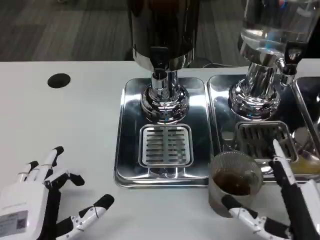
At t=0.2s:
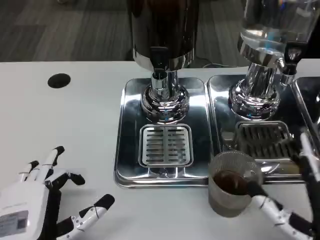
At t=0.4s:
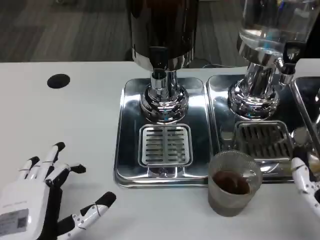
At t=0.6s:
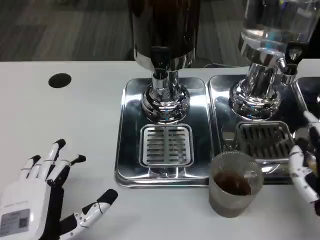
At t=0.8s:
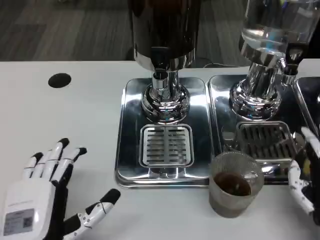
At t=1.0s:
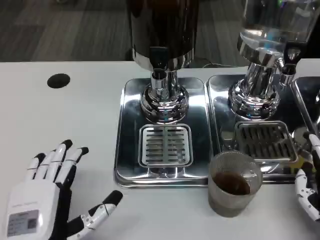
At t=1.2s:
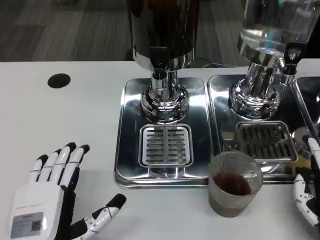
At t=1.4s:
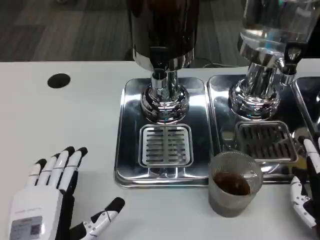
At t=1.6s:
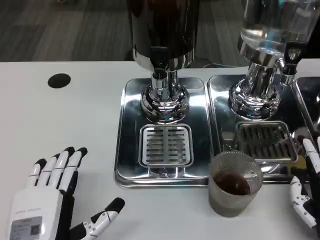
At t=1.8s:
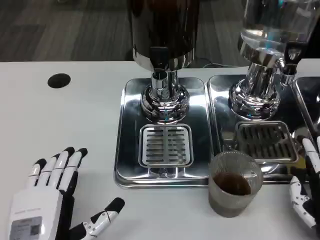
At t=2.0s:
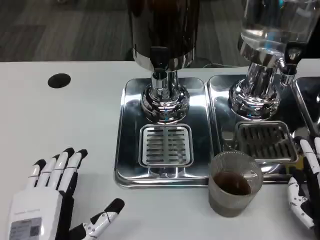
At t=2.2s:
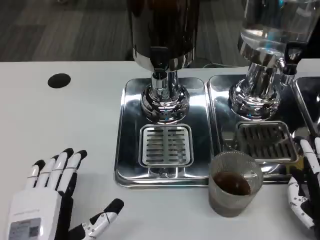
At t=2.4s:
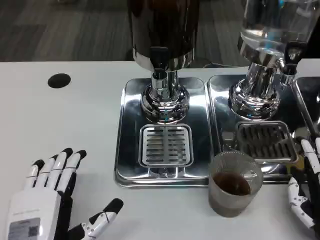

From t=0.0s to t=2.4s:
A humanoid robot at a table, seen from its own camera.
Task of the whole recording: Grasp the cup under the faucet to collect the drink, then remove the cup.
From t=0.0s to t=1.2s: The right hand shifts by some 5 cm.
From t=1.2s to t=2.4s: The two hands keep their place.

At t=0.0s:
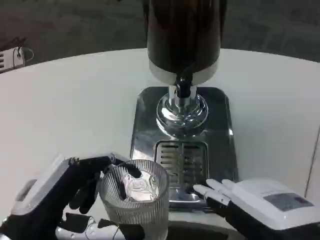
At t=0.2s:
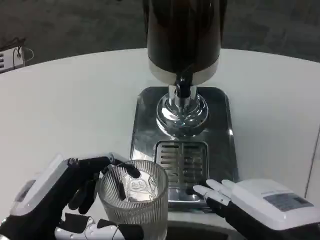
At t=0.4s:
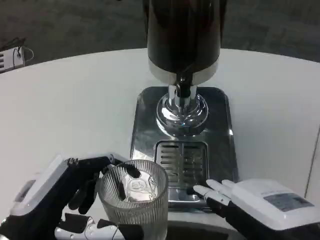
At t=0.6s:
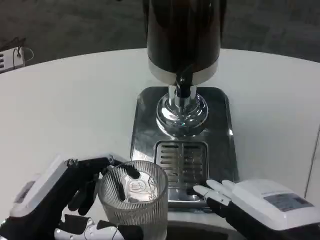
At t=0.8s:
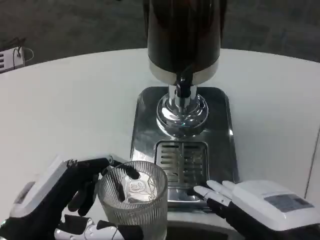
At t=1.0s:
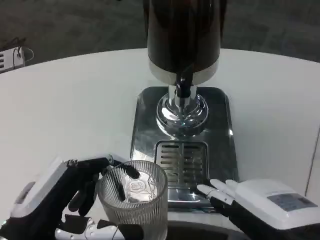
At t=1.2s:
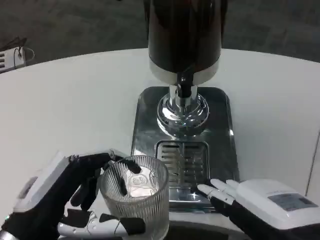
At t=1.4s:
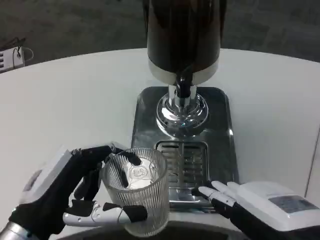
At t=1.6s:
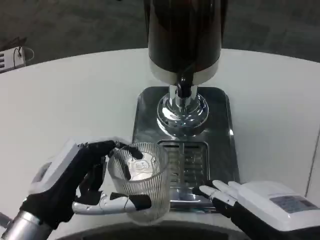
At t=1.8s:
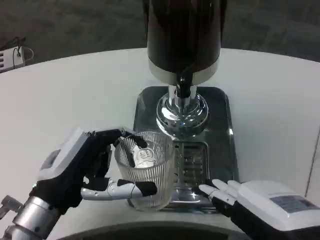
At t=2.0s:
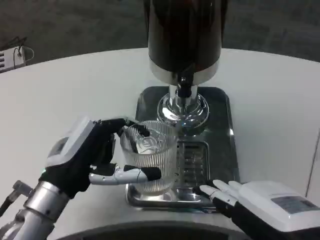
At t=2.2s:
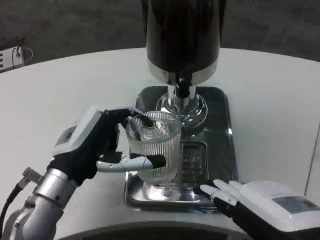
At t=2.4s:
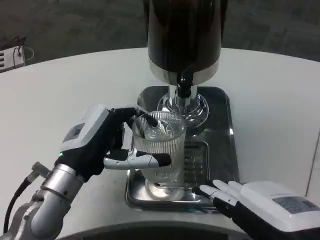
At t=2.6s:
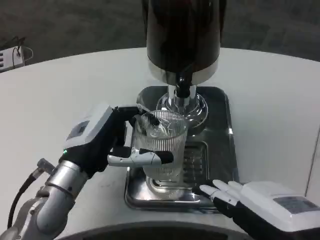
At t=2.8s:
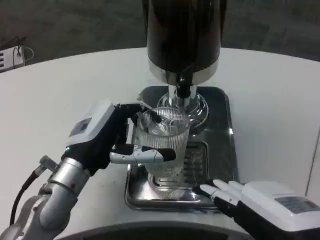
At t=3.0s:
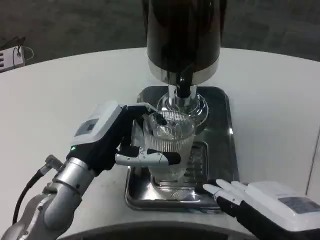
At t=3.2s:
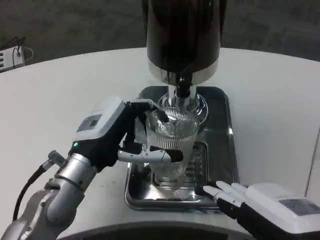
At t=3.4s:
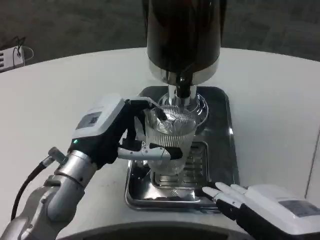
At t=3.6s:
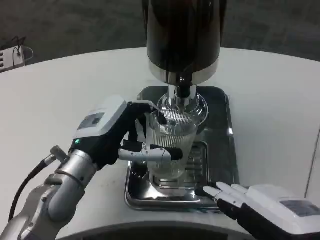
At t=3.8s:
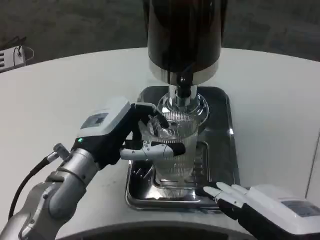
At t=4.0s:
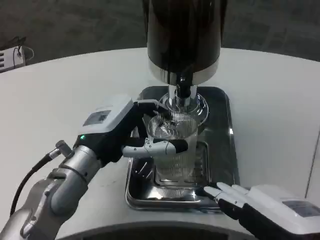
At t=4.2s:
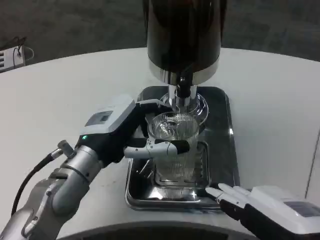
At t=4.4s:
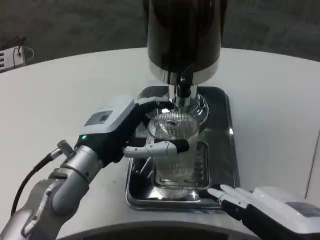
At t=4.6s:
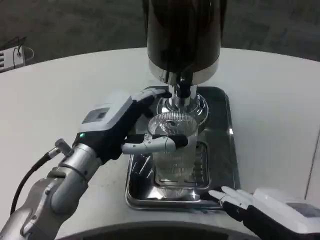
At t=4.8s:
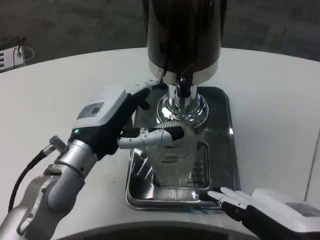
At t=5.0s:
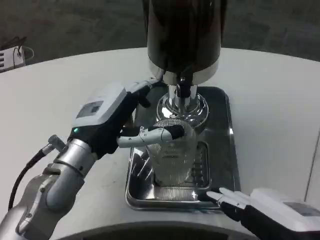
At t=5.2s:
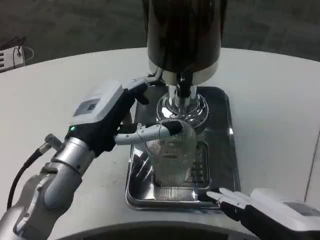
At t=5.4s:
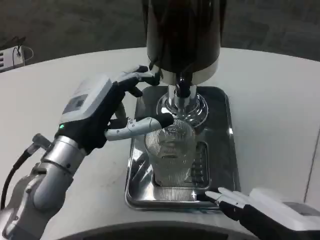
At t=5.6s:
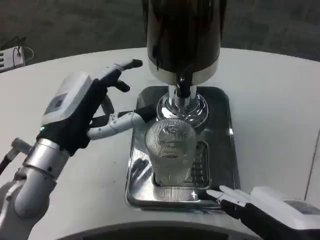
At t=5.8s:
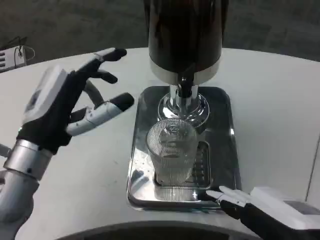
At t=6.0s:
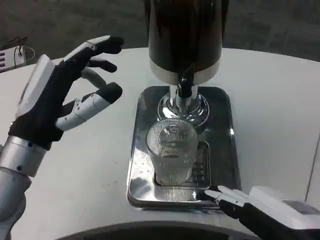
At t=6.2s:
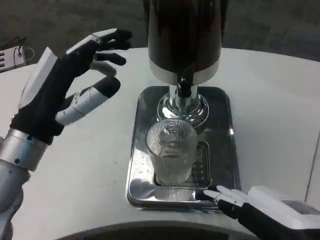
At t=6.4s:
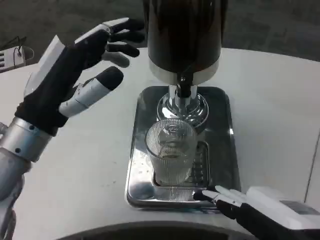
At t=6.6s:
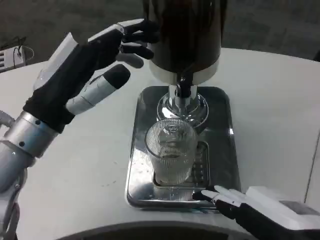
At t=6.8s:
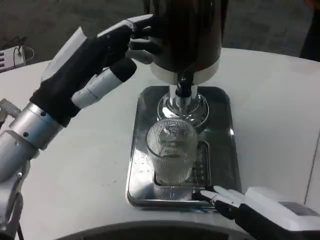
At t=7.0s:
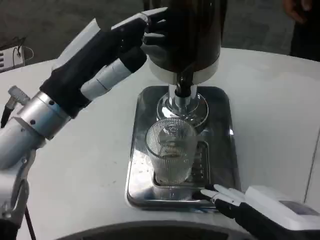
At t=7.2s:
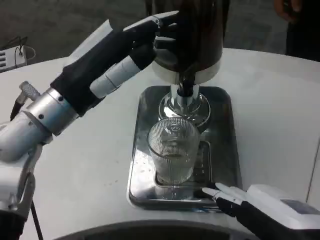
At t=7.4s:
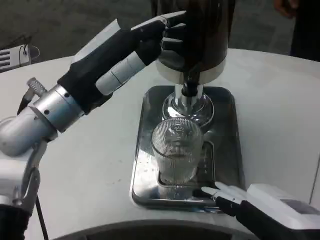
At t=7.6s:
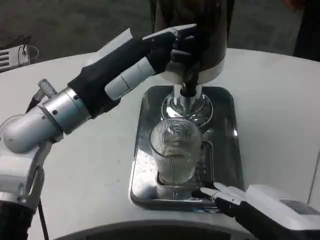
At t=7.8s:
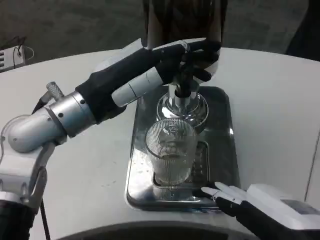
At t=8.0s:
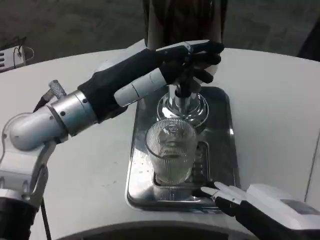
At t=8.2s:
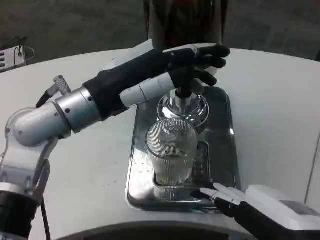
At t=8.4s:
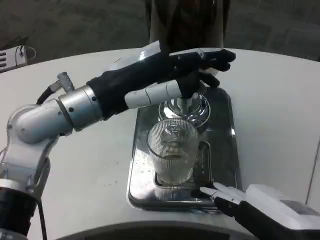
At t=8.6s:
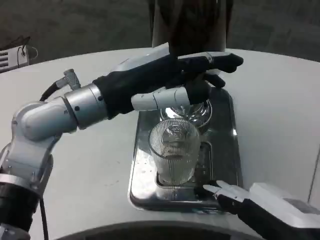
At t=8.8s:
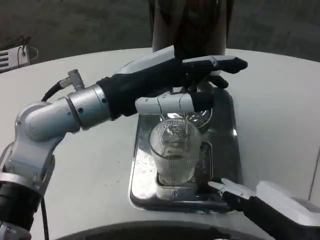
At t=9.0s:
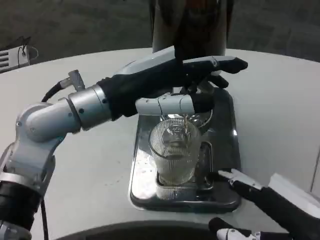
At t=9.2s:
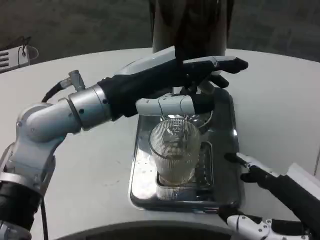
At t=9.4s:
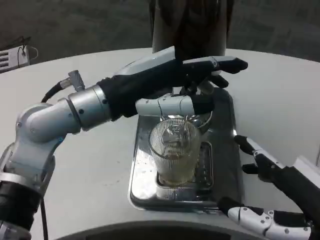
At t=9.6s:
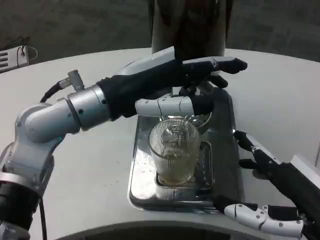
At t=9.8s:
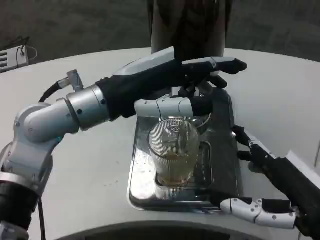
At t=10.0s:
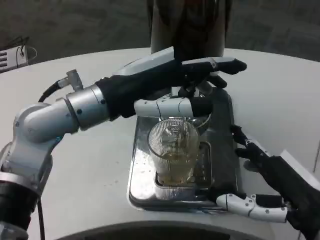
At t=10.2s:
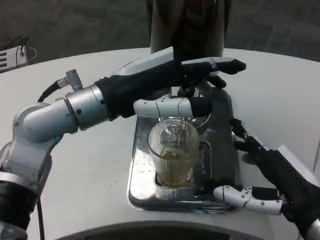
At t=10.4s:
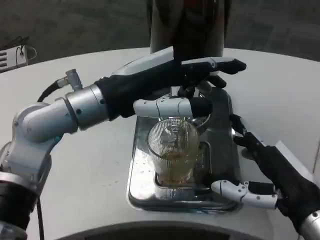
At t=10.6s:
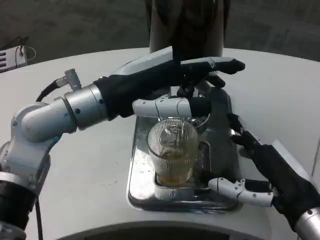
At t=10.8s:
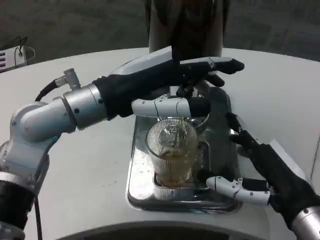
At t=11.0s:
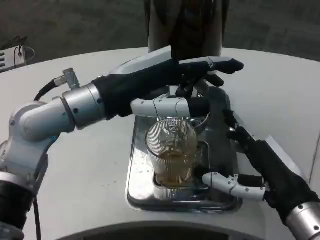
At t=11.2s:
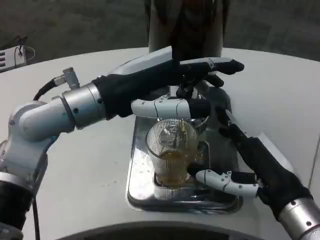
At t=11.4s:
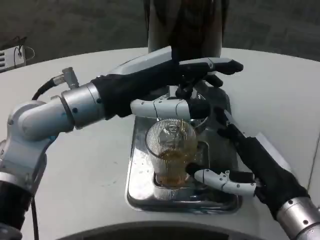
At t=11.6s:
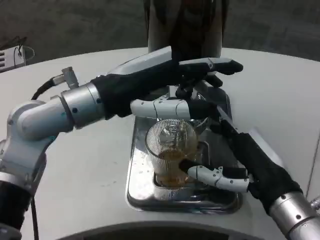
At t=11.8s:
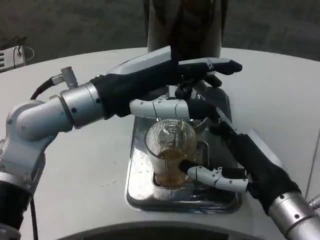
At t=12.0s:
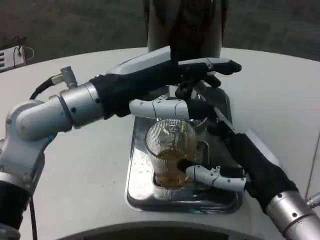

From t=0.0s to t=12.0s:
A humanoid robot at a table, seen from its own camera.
Task of the whole recording: Grasp the cup under the faucet to collect the drink, then remove the cup.
From t=0.0s to t=1.6s: The hands stay close to where they were, moving slightly.
From t=1.6s to t=3.0s: The left hand travels forward by roughly 10 cm.
From t=3.0s to t=4.4s: There are only small adjustments of the hands.
From t=4.4s to t=6.0s: The left hand heads to the left, covering some 5 cm.
From t=6.0s to t=7.6s: The left hand moves upward, roughly 5 cm.
From t=9.0s to t=10.4s: The right hand shifts approximately 10 cm forward.

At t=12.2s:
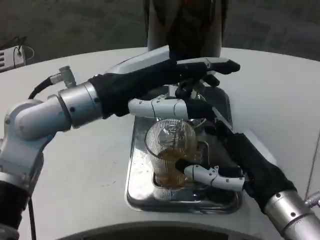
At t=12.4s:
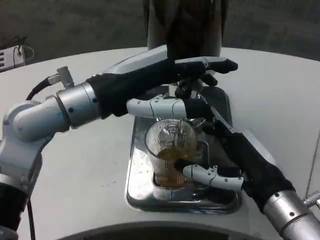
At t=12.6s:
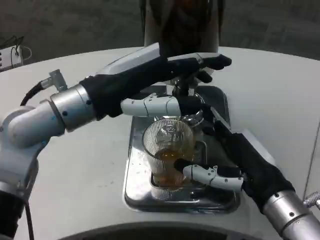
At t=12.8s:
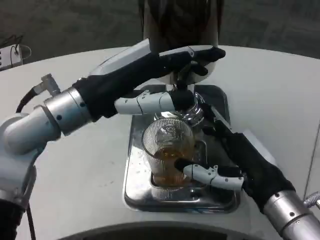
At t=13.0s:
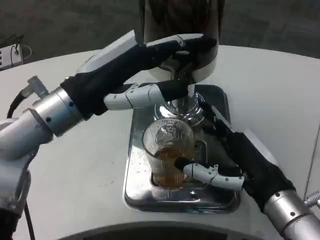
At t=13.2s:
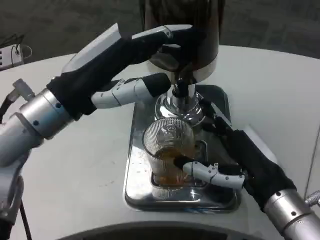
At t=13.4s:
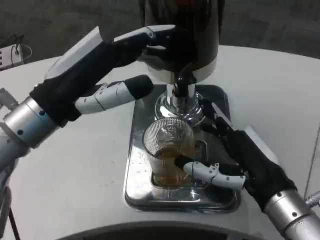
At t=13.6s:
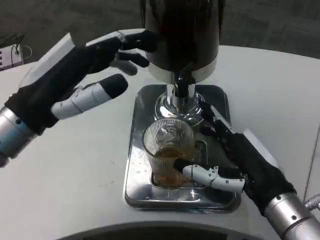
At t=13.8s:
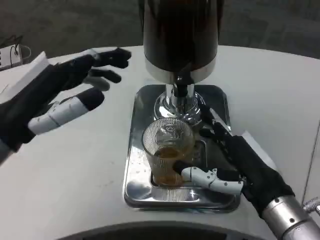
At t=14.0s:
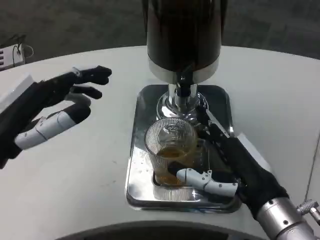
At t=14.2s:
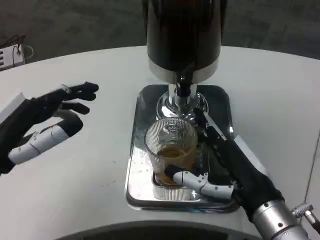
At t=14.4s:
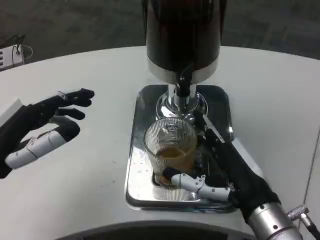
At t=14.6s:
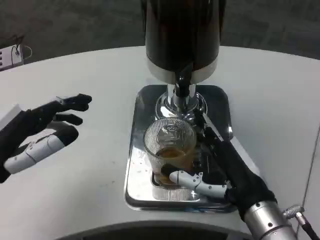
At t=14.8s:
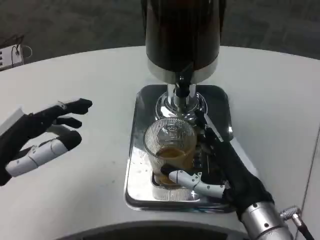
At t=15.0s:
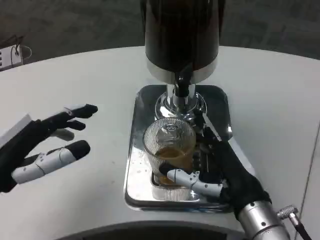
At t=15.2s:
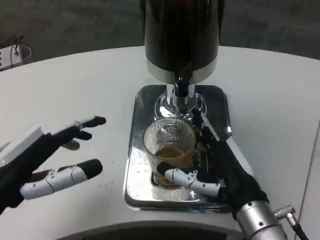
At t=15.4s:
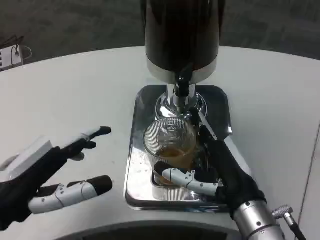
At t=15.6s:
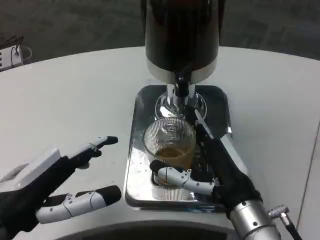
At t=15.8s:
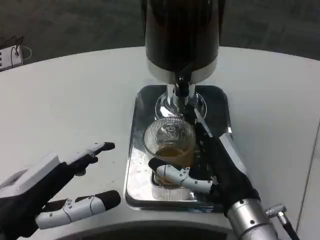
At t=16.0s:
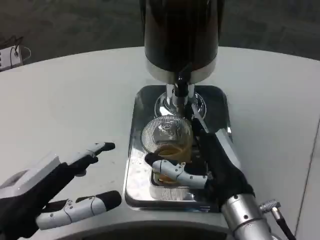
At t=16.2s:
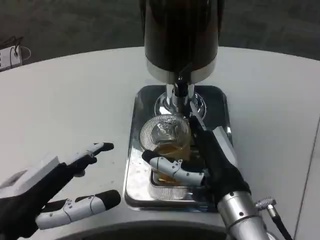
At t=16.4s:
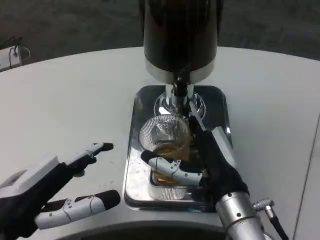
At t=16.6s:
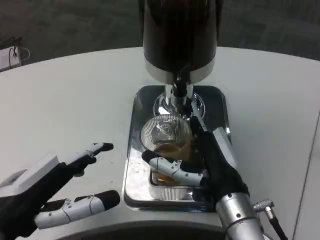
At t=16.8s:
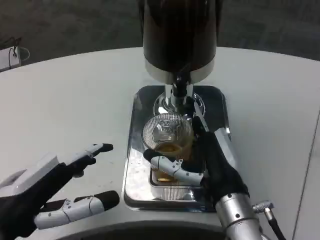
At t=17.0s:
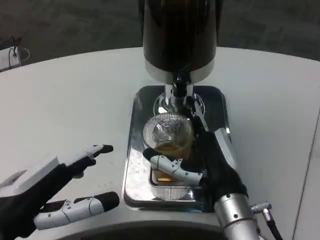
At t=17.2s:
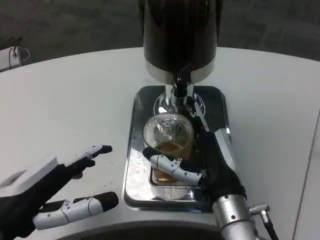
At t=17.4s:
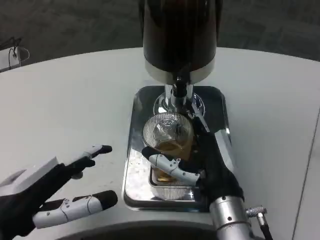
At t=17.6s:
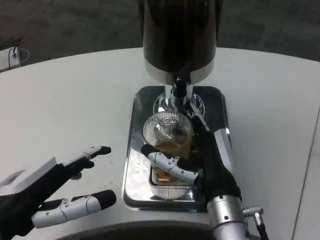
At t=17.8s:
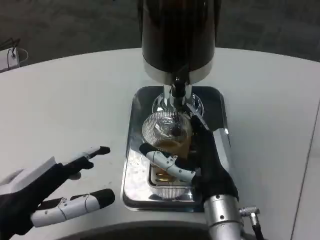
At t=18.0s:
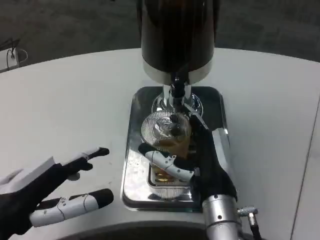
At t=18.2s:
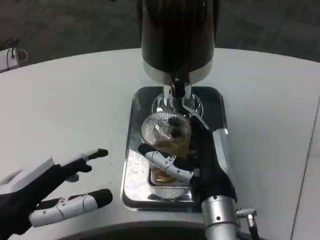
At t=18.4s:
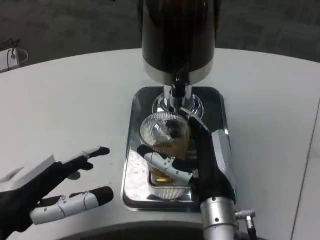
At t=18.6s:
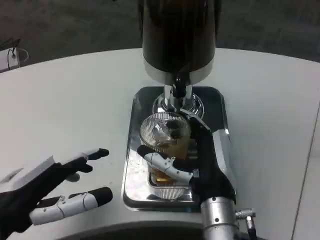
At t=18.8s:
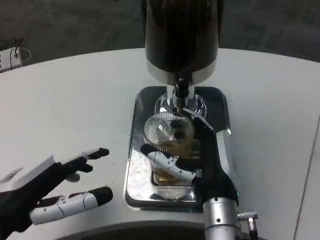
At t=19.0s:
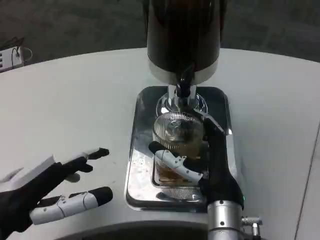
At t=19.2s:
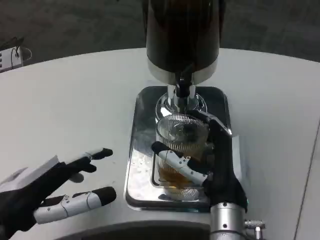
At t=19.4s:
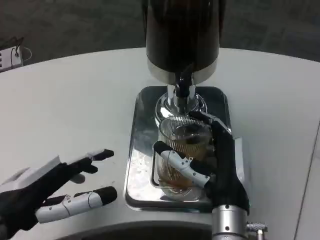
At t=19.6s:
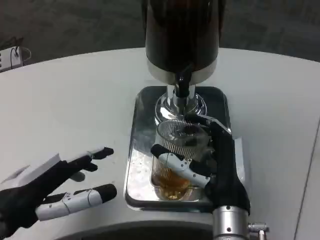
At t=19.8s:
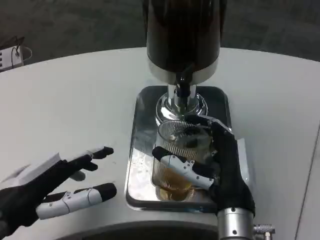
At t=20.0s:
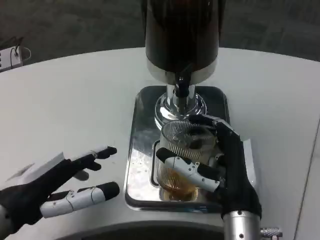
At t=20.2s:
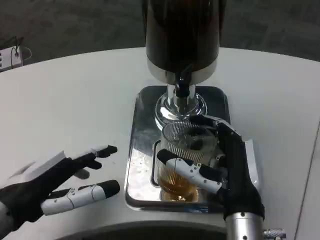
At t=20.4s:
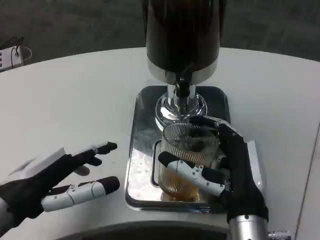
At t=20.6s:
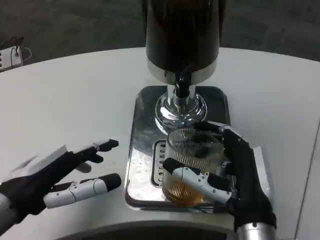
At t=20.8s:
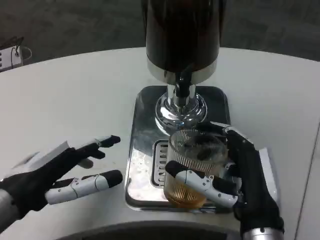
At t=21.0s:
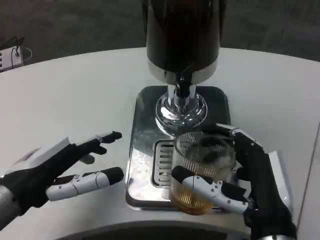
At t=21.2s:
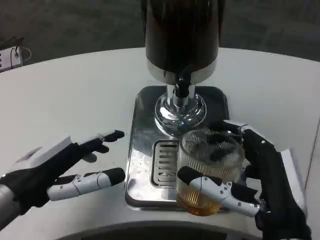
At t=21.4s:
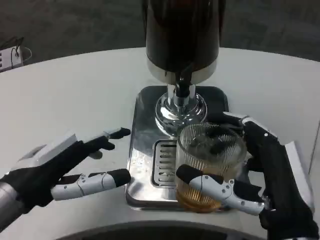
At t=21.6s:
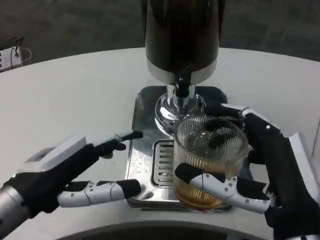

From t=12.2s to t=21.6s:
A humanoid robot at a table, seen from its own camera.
Task of the whole recording: Grasp the cup under the faucet to collect the drink, then remove the cup.
From t=12.2s to t=13.8s: The left hand is displaced to the left, backward and downward by some 10 cm.
From t=13.8s to t=15.4s: The left hand moves backward and downward, approximately 10 cm.
From t=17.0s to t=18.4s: The hands make only small movements.
From t=20.0s to t=21.6s: The right hand moves backward and to the right, approximately 10 cm.
